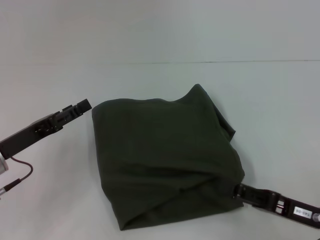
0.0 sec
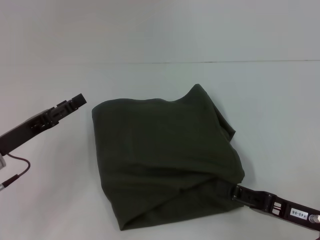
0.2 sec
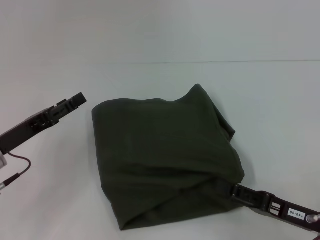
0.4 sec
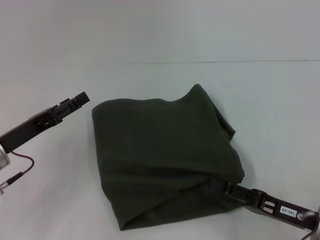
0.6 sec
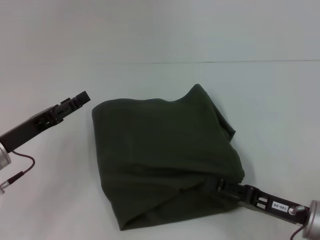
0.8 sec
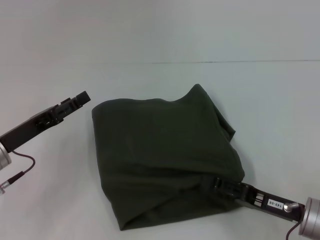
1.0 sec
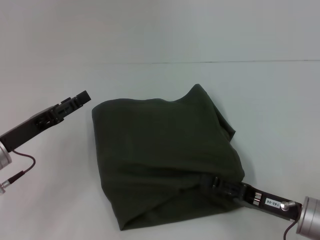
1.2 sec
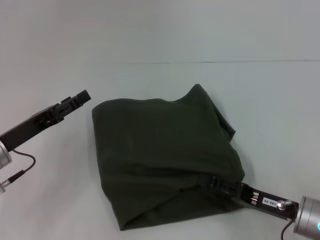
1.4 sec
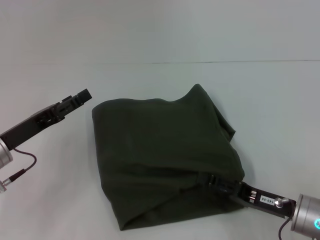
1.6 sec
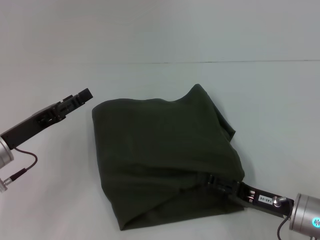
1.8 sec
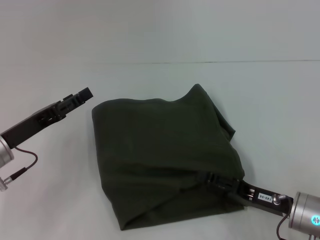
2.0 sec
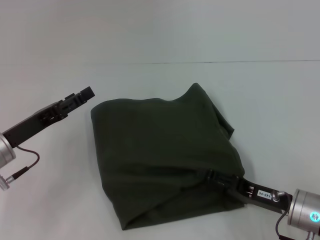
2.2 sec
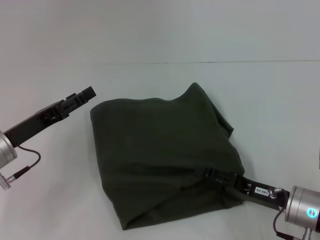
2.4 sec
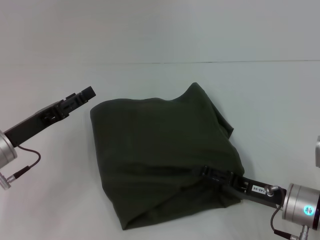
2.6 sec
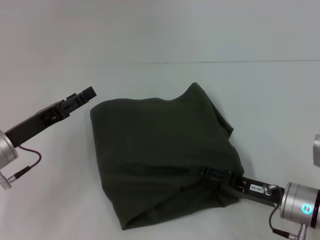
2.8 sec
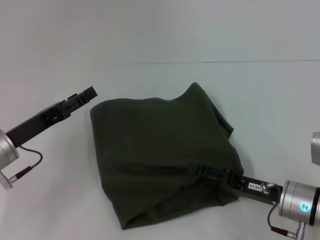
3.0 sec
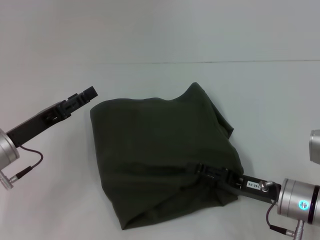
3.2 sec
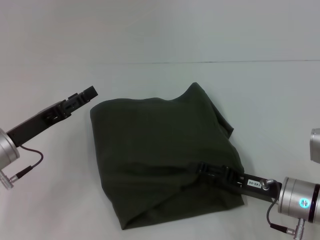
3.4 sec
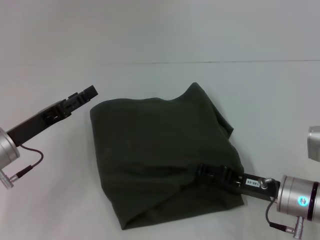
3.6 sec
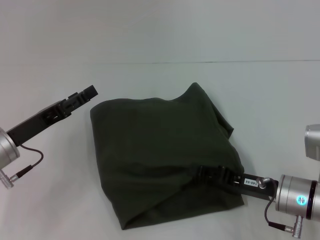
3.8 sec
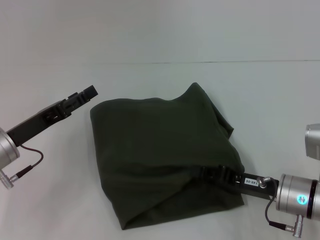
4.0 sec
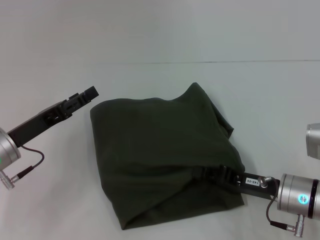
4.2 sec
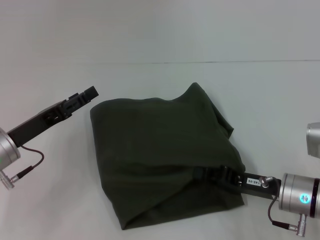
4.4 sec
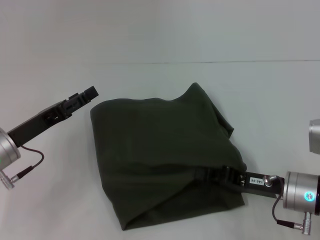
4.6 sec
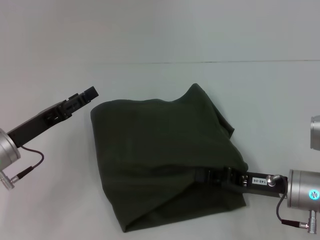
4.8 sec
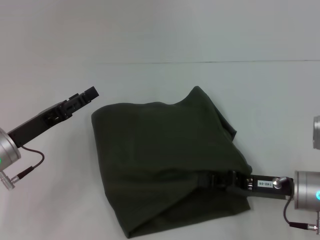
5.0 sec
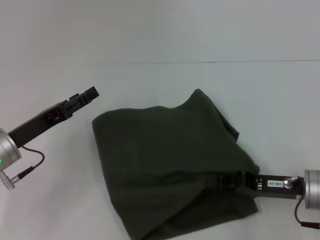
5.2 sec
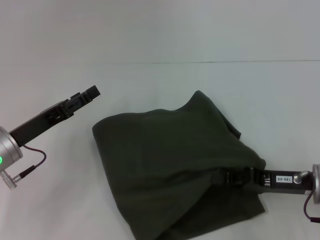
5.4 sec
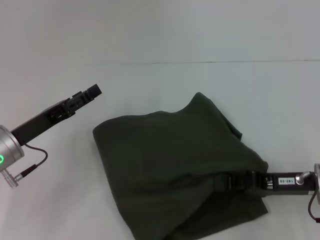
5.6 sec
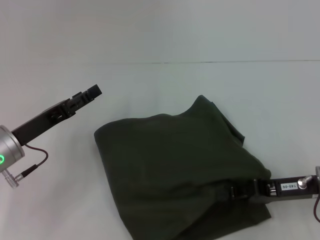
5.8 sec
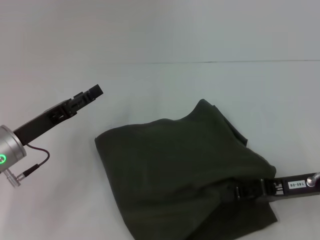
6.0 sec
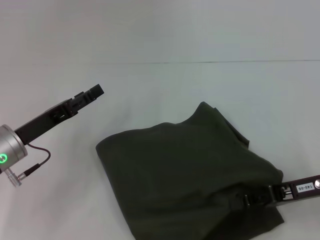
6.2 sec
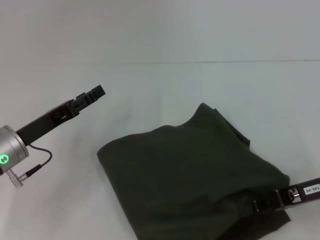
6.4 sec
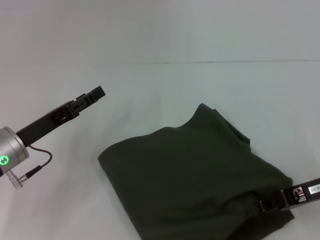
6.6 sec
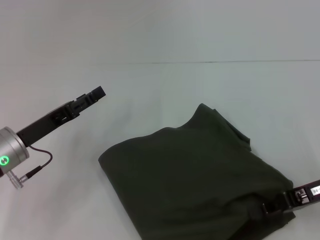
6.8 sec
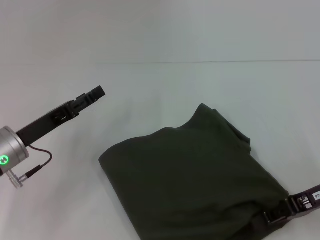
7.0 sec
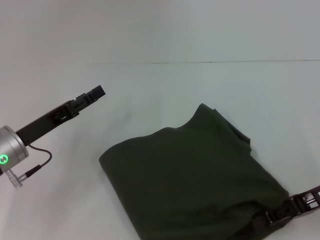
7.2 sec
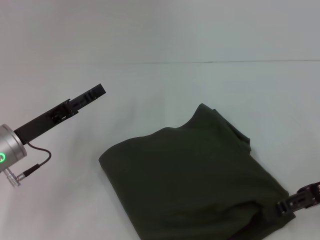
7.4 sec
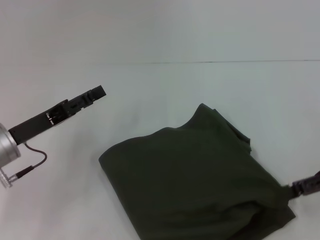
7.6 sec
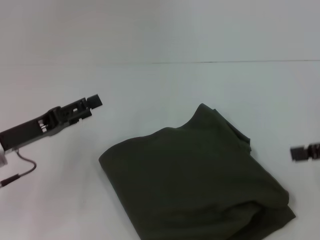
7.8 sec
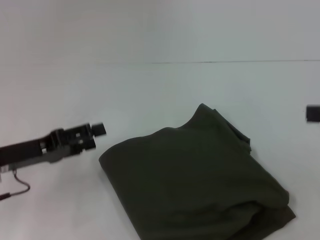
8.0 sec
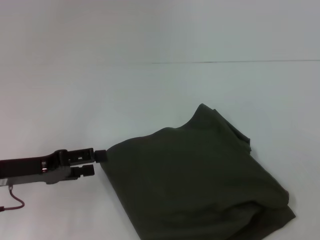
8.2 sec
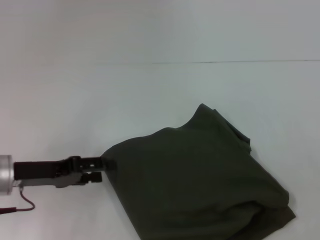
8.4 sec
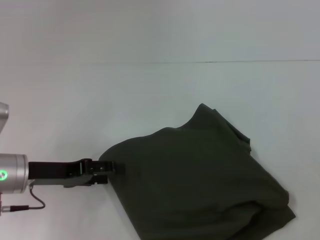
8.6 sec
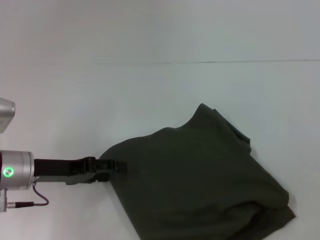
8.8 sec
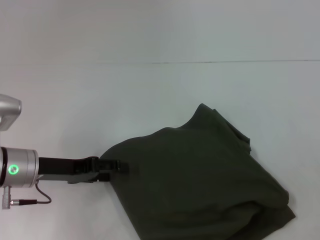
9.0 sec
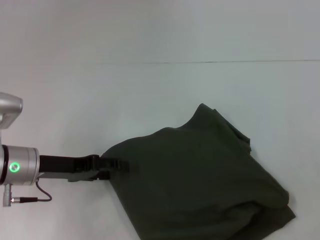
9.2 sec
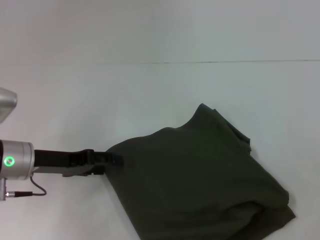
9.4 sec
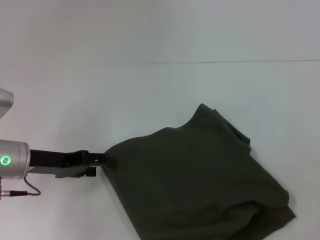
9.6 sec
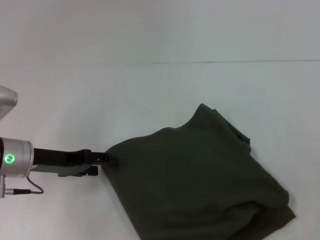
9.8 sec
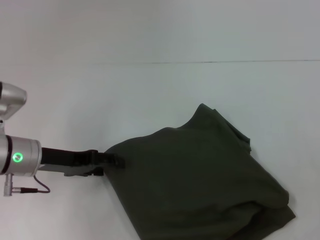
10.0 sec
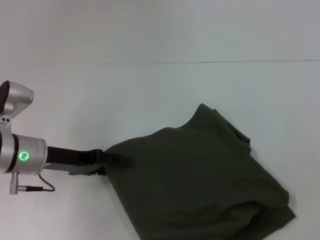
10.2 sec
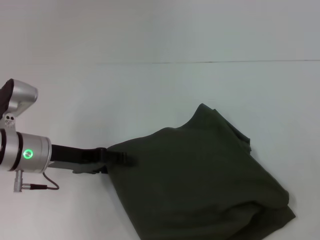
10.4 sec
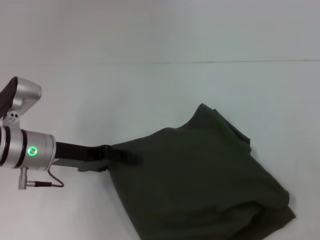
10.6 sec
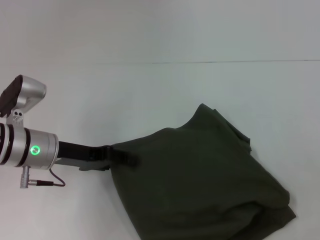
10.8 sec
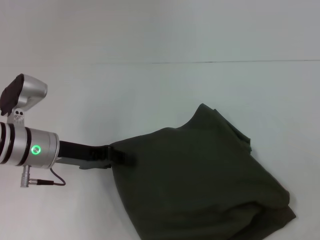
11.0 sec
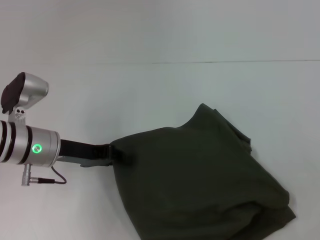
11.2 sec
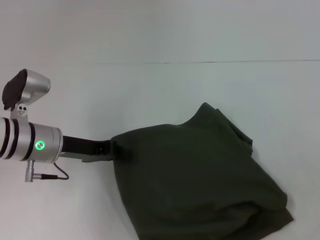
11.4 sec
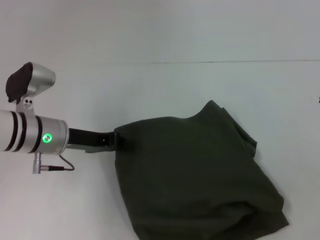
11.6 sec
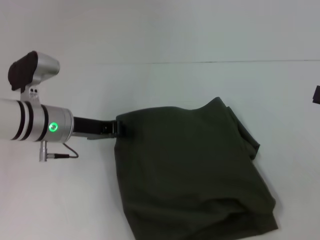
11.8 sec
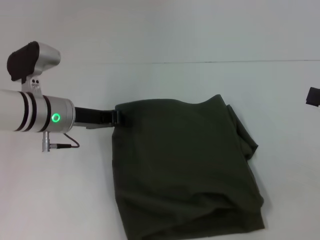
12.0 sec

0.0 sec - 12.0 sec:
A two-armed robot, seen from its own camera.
0.0 sec - 1.6 sec: The grippers move only a little.
1.6 sec - 3.0 sec: There are only small adjustments of the grippers.
3.0 sec - 4.4 sec: The right gripper closes its fingers.
4.4 sec - 6.0 sec: The right gripper is displaced upward by some 5 cm.
6.0 sec - 7.6 sec: The right gripper goes roughly 10 cm to the right and upward, and opens its fingers.
7.6 sec - 9.0 sec: The right gripper heads to the right, covering approximately 10 cm.
9.0 sec - 10.4 sec: The grippers stay close to where they were, moving slightly.
10.4 sec - 12.0 sec: The left gripper moves forward, approximately 5 cm, and closes.

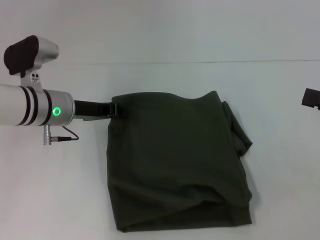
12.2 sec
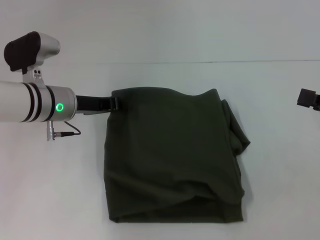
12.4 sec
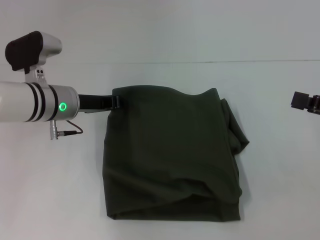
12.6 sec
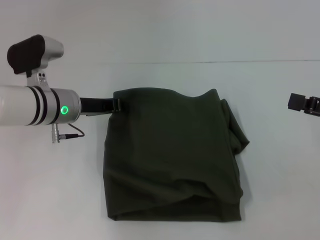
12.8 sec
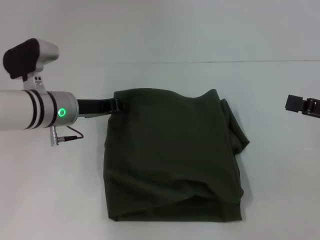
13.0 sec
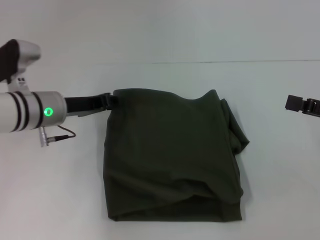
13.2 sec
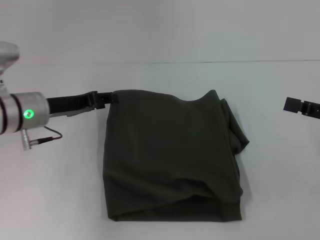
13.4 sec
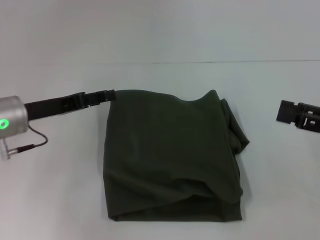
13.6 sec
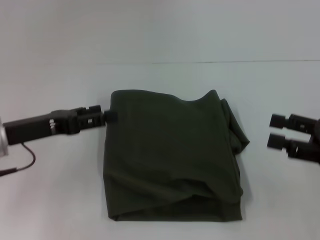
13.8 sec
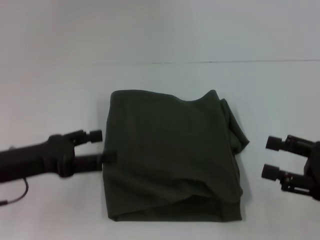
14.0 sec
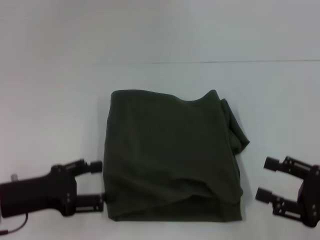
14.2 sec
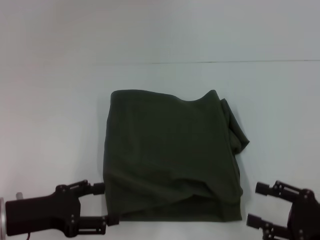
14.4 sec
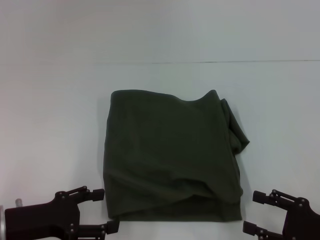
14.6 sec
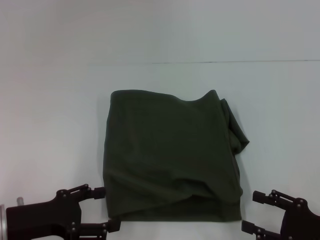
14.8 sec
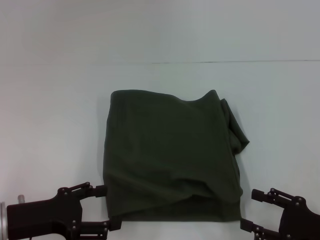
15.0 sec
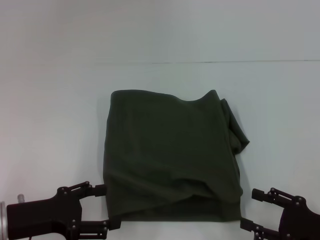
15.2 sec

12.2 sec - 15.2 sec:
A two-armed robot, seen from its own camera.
12.2 sec - 13.8 sec: The left gripper shifts about 10 cm backward and to the left, and opens.
13.8 sec - 15.2 sec: The right gripper is displaced downward and backward by approximately 15 cm, while the left gripper is displaced backward and downward by some 10 cm.

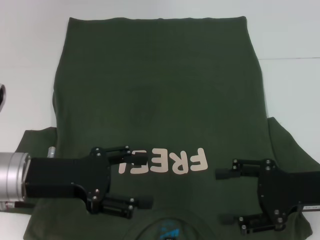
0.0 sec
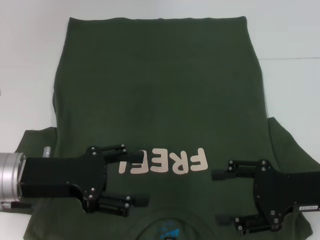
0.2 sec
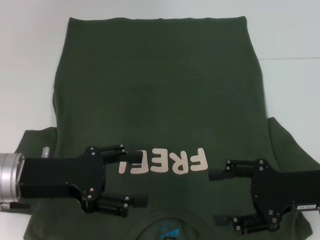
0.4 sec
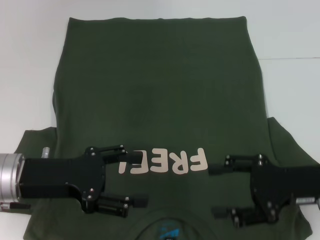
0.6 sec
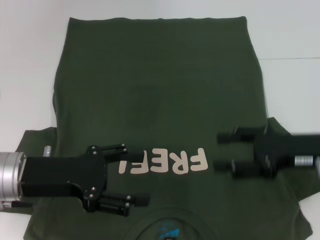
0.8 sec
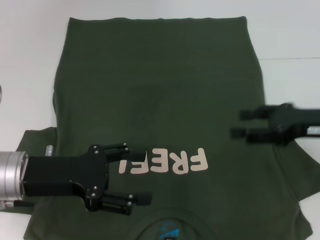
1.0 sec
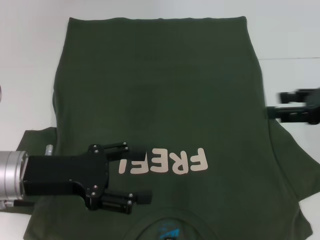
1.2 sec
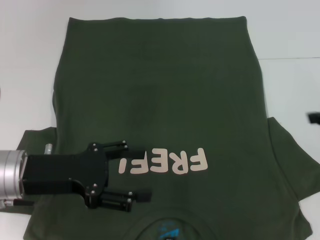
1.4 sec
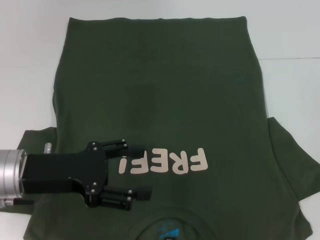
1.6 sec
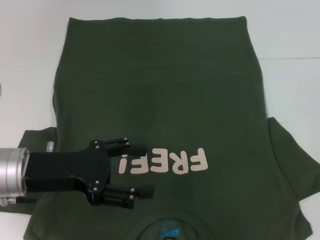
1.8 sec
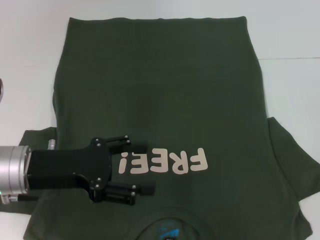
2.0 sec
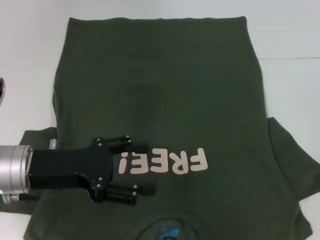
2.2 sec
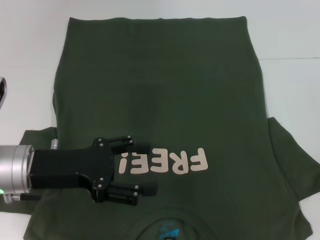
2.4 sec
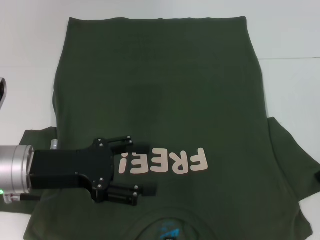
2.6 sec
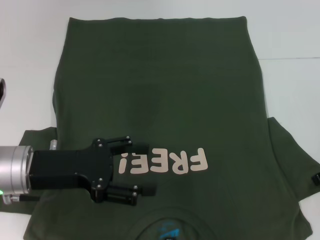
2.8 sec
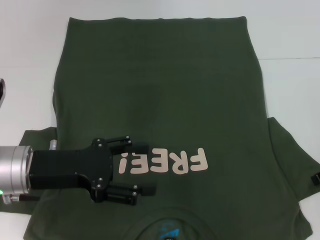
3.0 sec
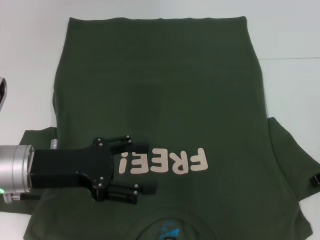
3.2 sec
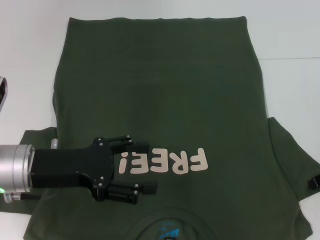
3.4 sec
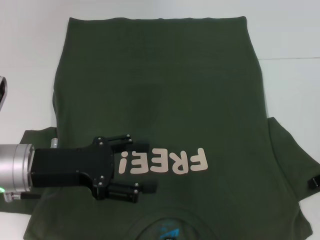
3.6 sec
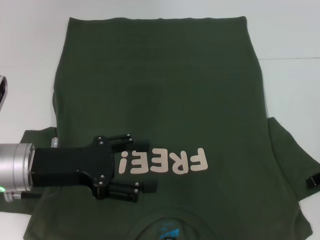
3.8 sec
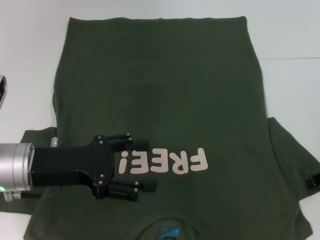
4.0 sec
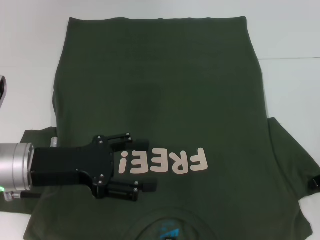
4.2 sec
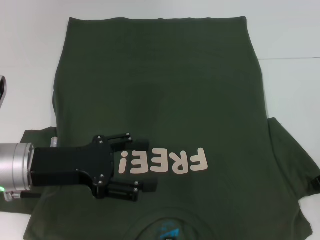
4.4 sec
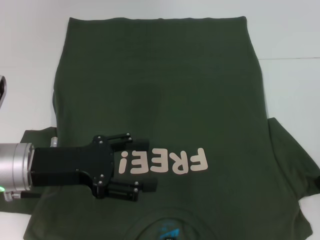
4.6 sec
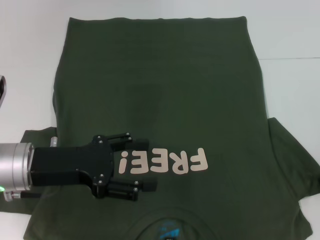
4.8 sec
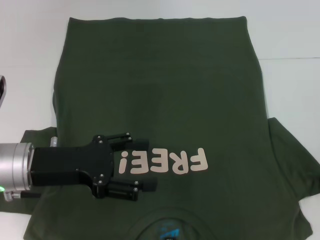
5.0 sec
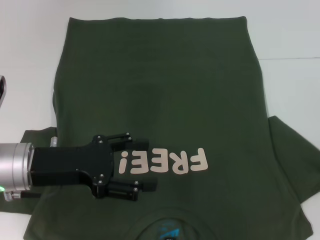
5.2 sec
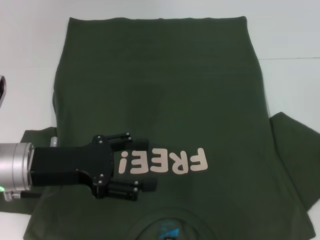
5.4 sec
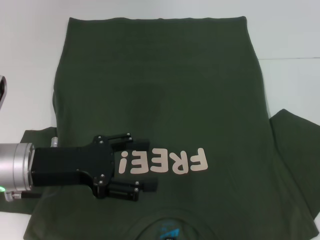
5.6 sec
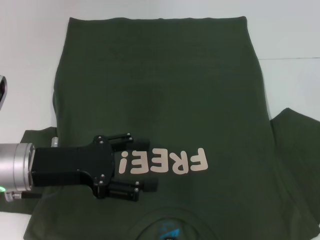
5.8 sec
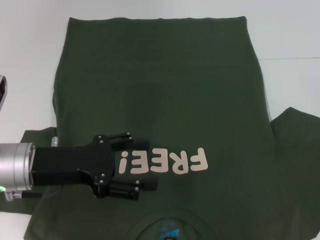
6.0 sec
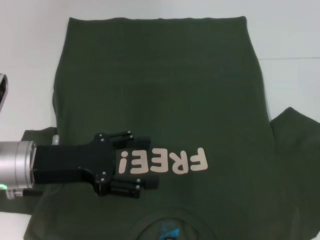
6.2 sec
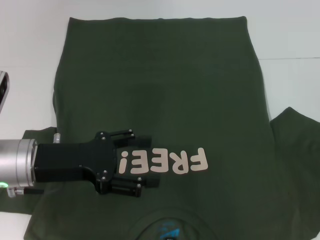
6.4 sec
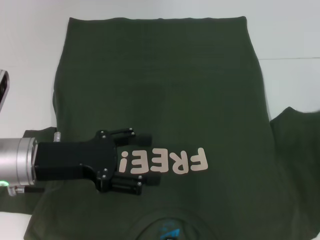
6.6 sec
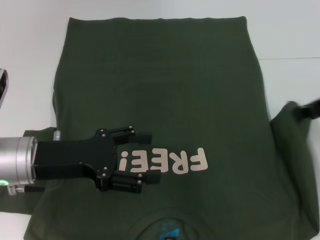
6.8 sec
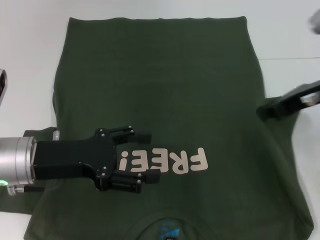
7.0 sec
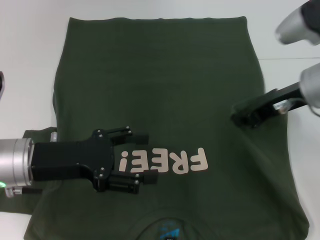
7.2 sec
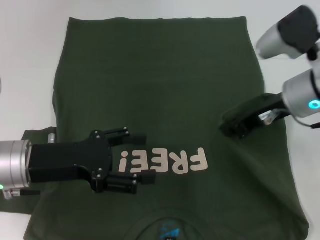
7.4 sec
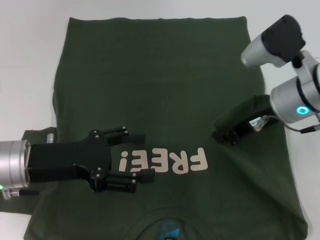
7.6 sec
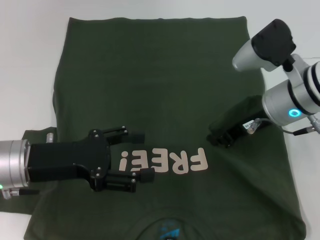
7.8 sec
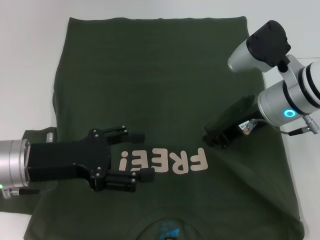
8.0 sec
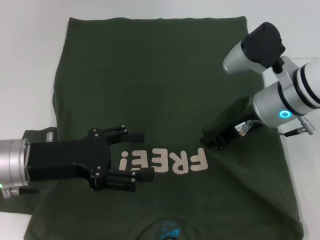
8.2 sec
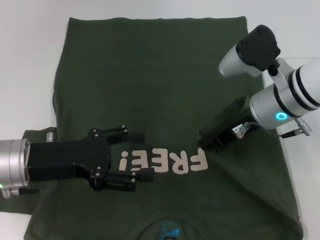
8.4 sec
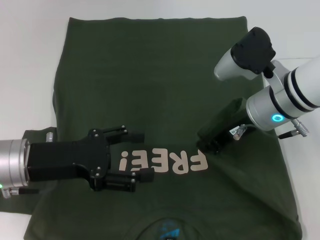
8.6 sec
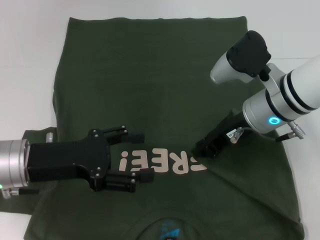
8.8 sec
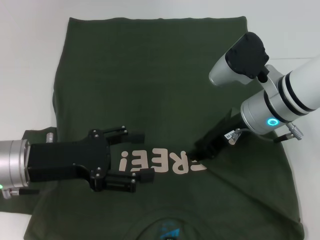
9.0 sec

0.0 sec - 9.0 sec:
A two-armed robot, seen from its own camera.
0.0 sec - 1.6 sec: The right gripper heads to the right, upward and forward, covering about 15 cm.
1.6 sec - 3.0 sec: The right gripper goes roughly 5 cm downward.
3.0 sec - 4.4 sec: The right gripper closes.
4.4 sec - 6.0 sec: The right gripper shifts about 5 cm to the right.
6.0 sec - 7.6 sec: The right gripper heads to the left, covering roughly 20 cm.
7.6 sec - 9.0 sec: The grippers move only a little.
